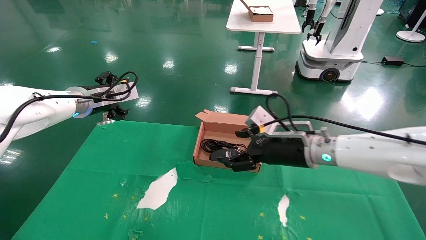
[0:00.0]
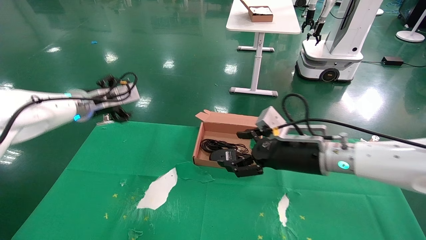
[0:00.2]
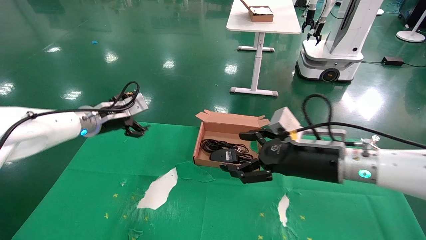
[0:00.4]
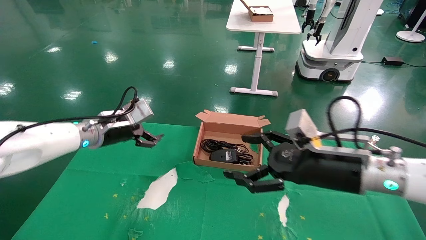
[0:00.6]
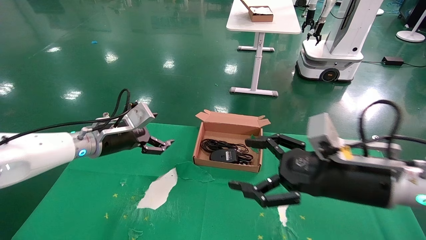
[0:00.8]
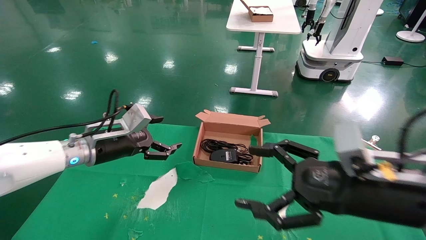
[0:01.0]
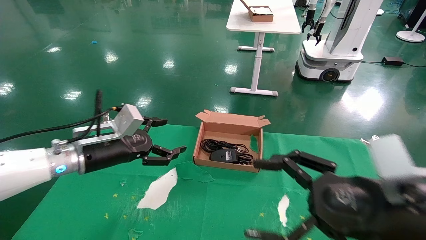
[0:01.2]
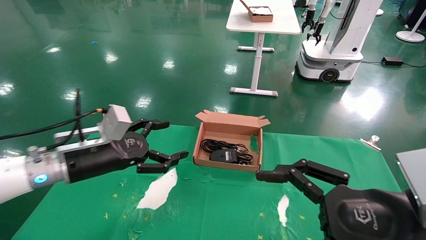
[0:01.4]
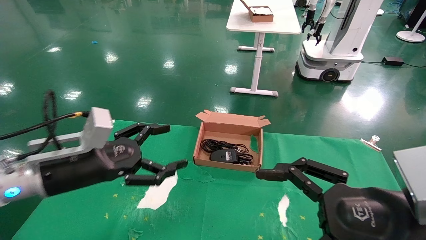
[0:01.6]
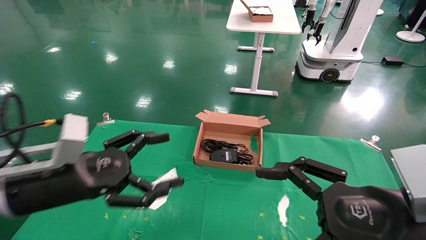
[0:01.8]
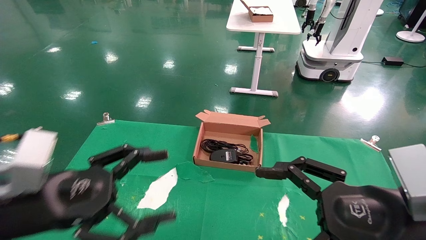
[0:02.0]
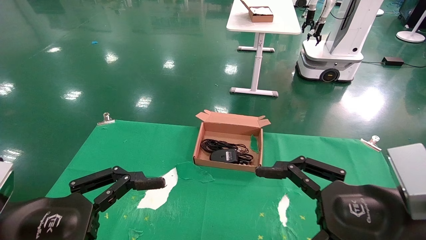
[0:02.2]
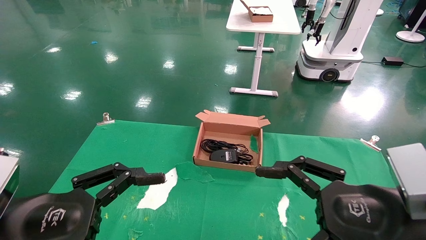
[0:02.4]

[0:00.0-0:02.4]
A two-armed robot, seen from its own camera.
0:00.0 to 0:01.2: The left gripper is displaced backward and downward by some 15 cm, while the right gripper heads backward, covering about 20 cm.
0:01.2 to 0:02.4: The left gripper is displaced backward by about 20 cm.

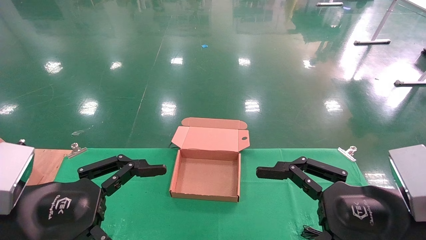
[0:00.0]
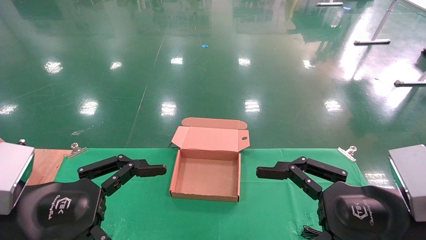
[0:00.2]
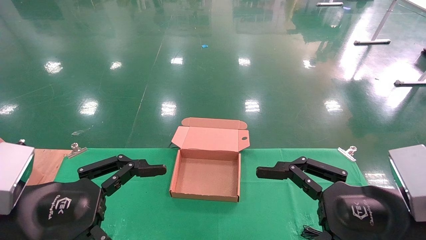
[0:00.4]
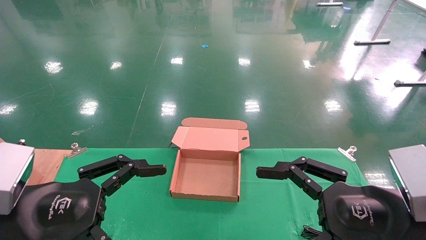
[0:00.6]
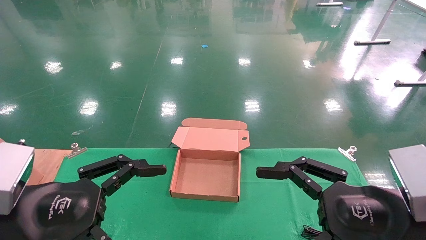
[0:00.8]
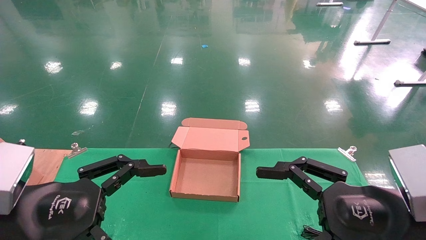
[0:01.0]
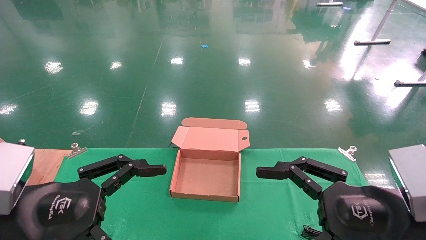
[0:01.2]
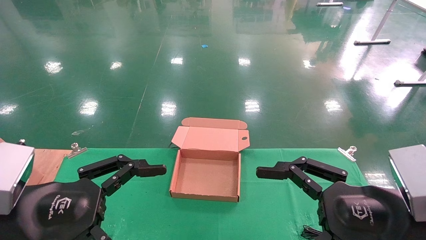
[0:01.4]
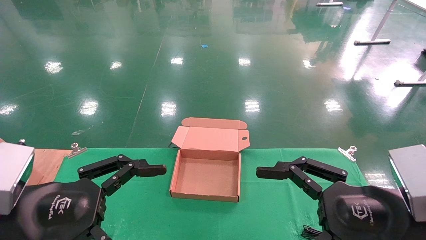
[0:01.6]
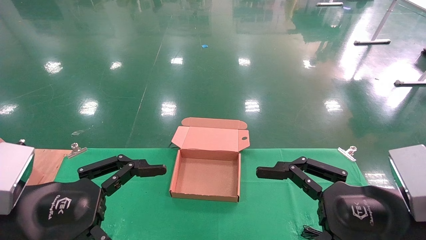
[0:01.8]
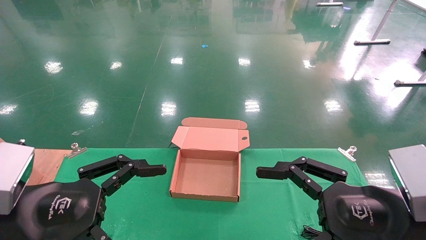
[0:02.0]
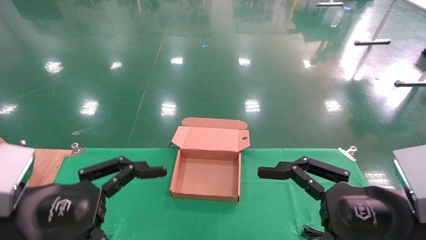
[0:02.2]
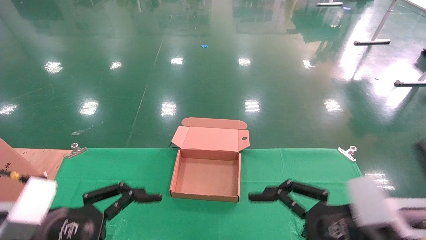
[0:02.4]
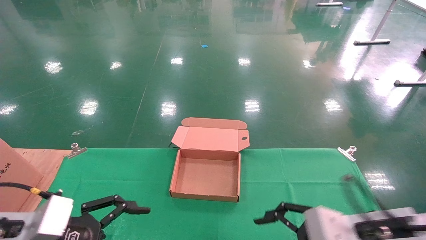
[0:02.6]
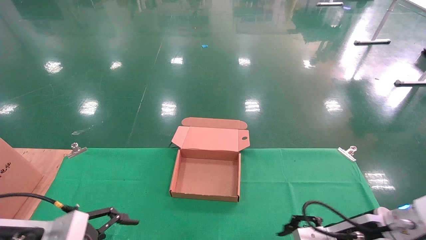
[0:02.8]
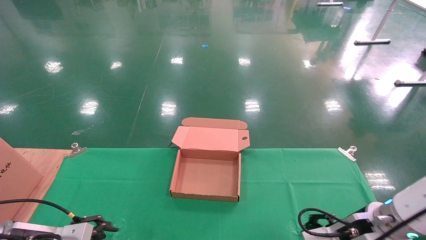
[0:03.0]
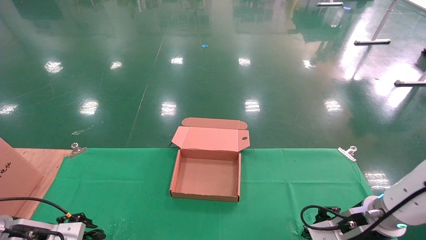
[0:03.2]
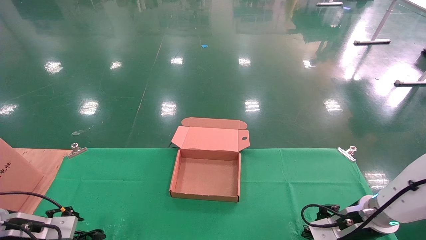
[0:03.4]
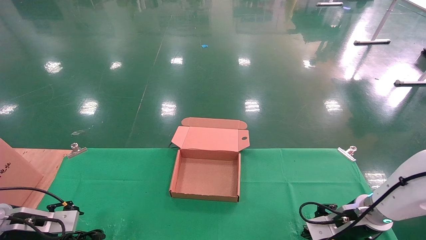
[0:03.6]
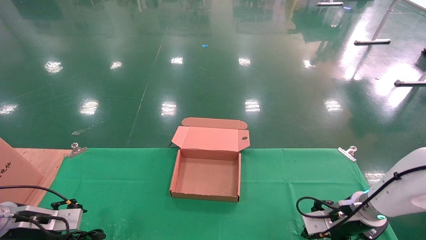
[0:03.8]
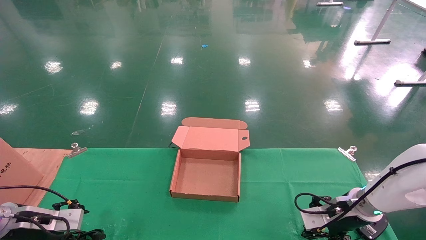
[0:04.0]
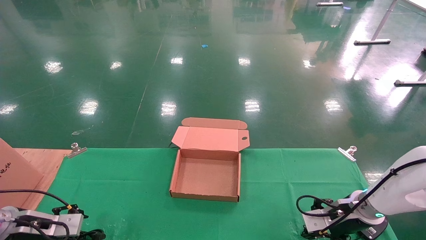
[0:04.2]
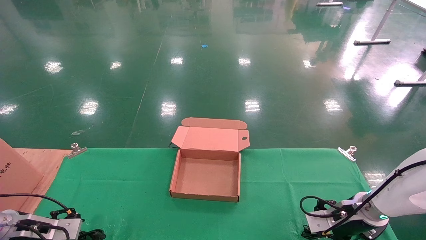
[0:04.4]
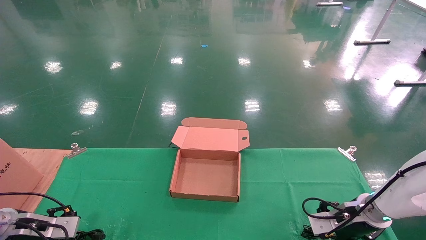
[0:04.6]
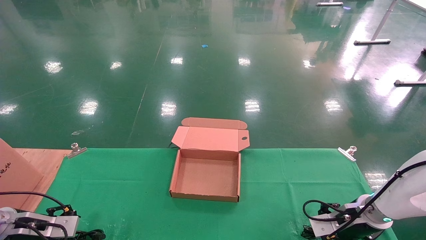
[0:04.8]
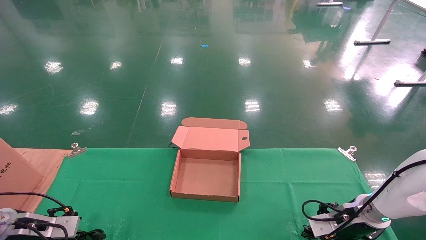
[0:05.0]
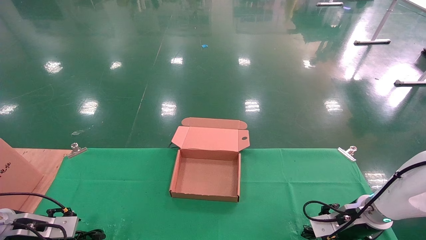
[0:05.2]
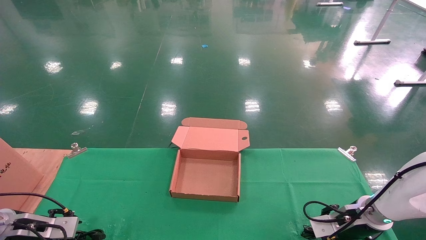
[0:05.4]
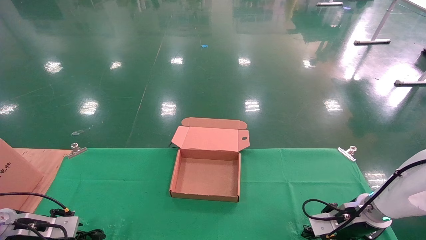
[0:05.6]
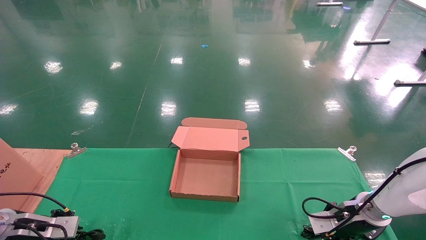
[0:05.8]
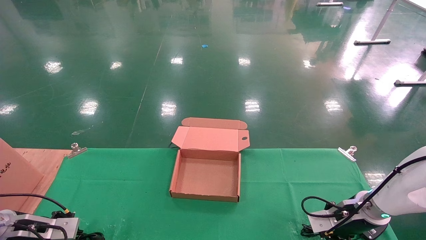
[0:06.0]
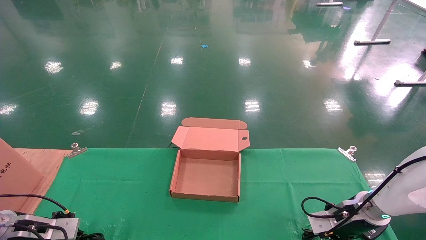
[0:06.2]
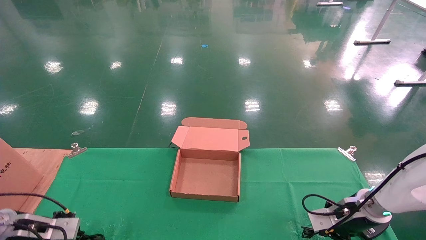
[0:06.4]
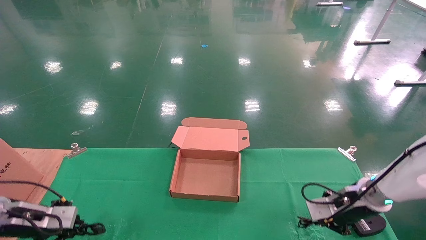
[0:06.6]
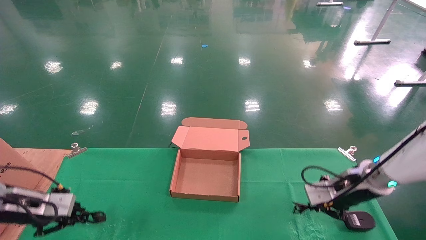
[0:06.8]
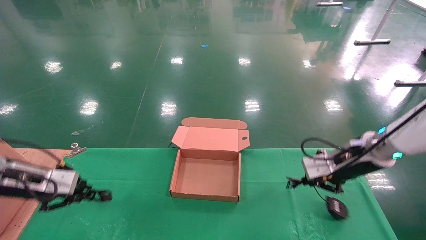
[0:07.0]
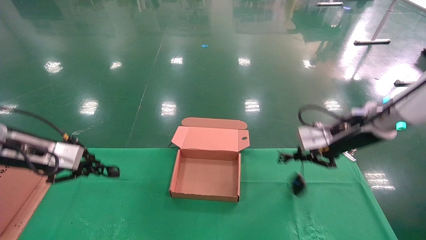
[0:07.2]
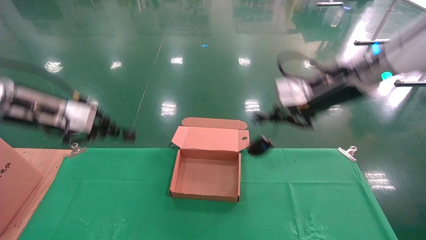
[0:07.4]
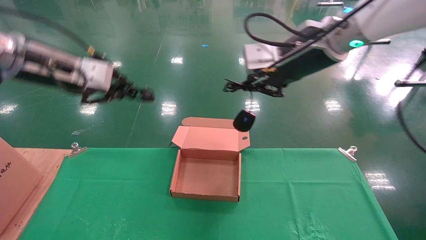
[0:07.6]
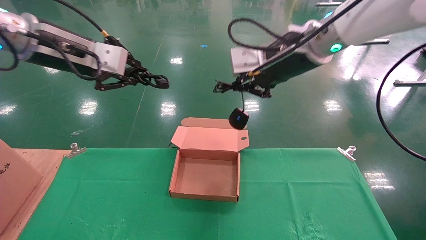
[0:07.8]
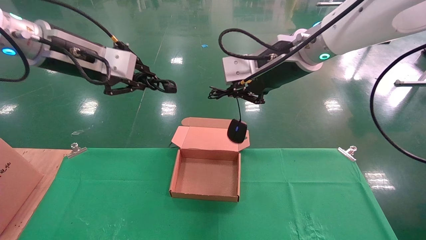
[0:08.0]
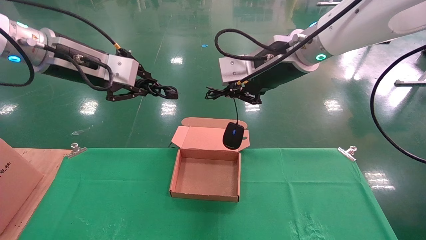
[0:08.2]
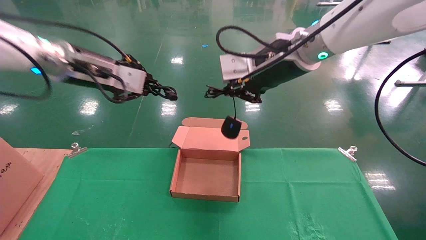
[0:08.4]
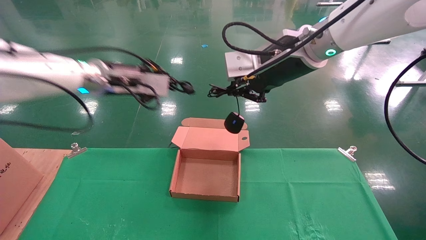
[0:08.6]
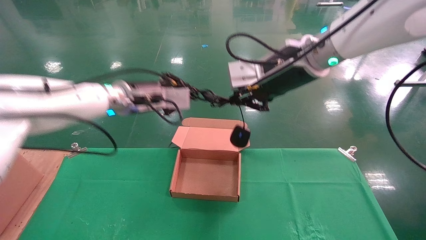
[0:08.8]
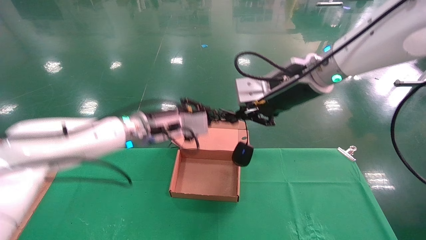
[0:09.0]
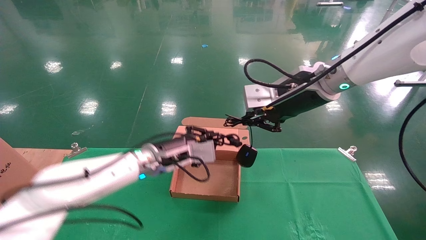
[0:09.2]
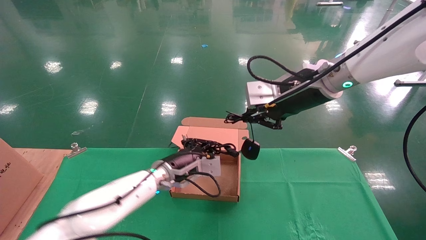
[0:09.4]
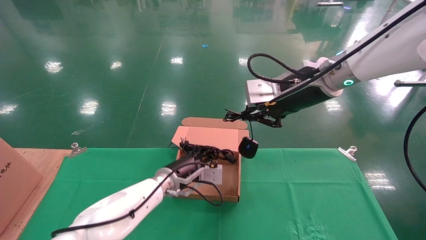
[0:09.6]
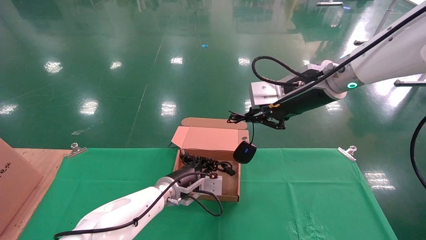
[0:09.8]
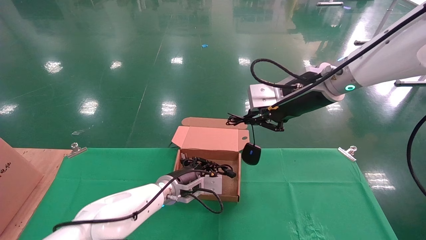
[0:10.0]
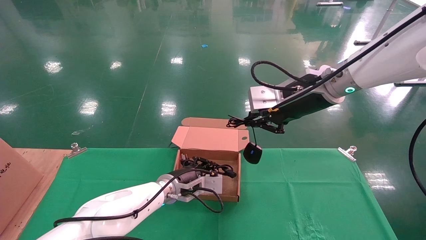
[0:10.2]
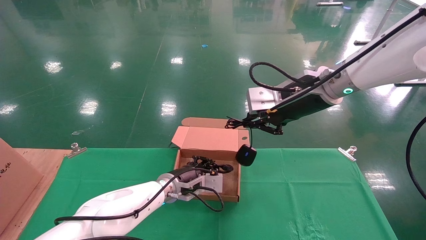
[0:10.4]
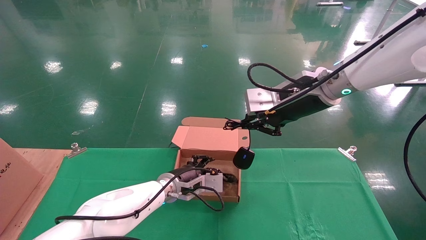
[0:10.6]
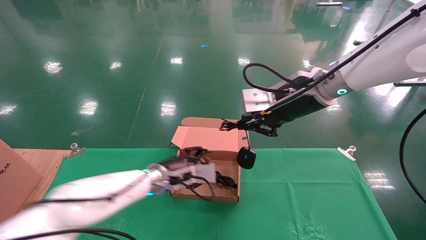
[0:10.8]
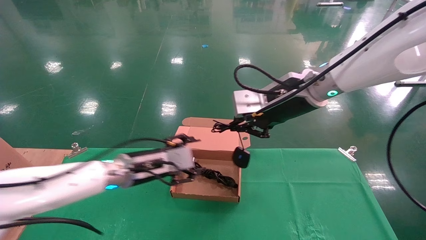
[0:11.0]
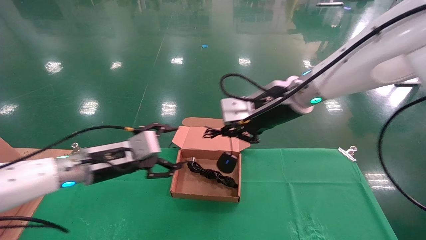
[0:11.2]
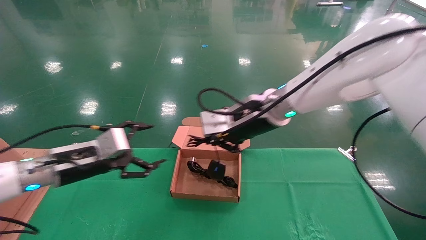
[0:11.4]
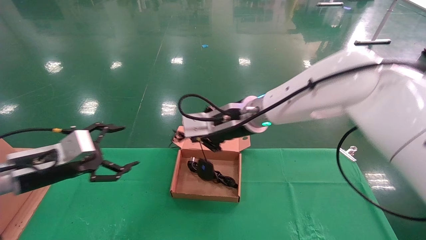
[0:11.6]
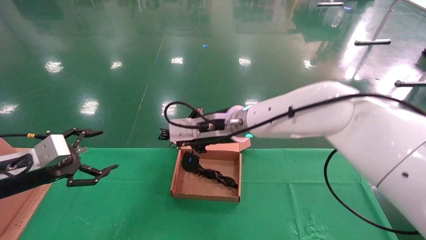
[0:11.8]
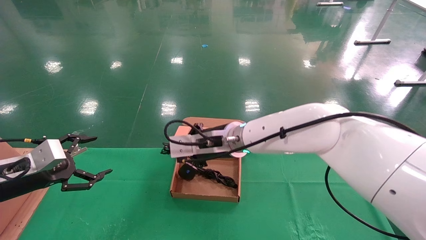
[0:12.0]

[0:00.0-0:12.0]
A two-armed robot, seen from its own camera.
Step, 0:02.4 to 0:07.0: Grab and lift both the mouse and power cord from the accessory packaging area at the same time.
0:00.0 to 0:01.6: Neither gripper changes place.
0:01.6 to 0:03.0: The left gripper goes about 20 cm downward, forward and to the left. The right gripper heads forward and downward, covering about 15 cm.
0:03.0 to 0:04.4: The right gripper is displaced forward by roughly 10 cm. The left gripper goes approximately 10 cm to the left and forward.
0:04.4 to 0:06.0: The left gripper closes. Meanwhile the right gripper closes.
0:06.0 to 0:07.6: The left gripper is displaced upward by some 35 cm; the right gripper shifts some 35 cm upward and to the left.
0:07.6 to 0:09.0: The left gripper moves to the right, downward and forward, about 25 cm.
0:09.0 to 0:10.4: The left gripper goes about 15 cm downward.
0:10.4 to 0:12.0: The left gripper goes approximately 35 cm to the left and backward, and opens up; the right gripper moves to the left and downward, about 20 cm.

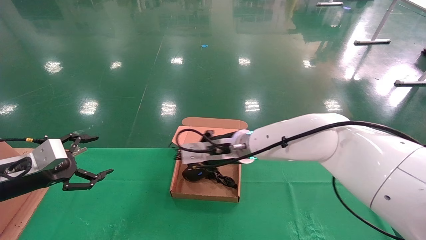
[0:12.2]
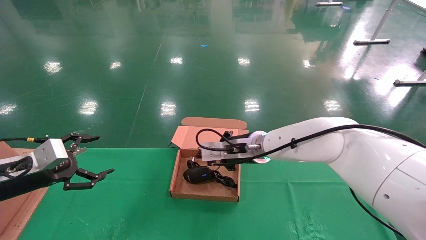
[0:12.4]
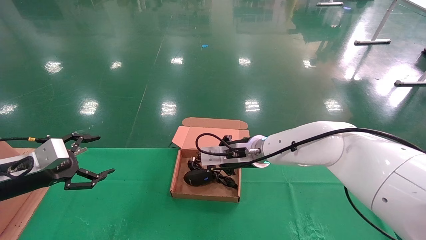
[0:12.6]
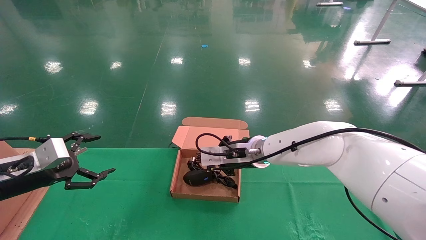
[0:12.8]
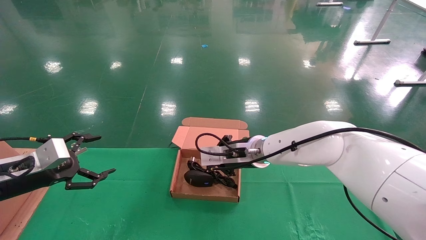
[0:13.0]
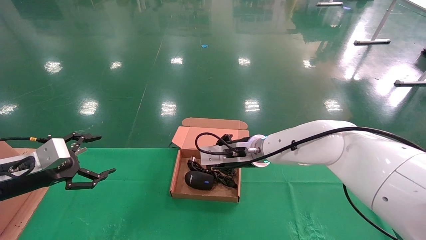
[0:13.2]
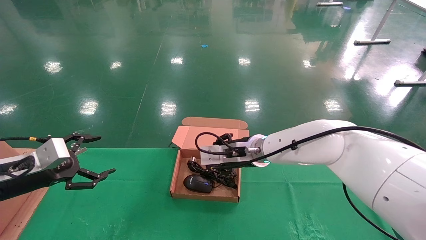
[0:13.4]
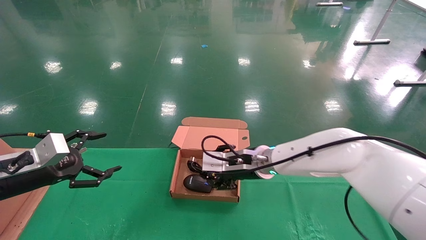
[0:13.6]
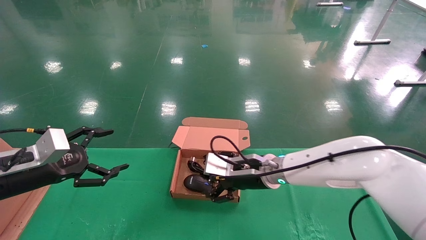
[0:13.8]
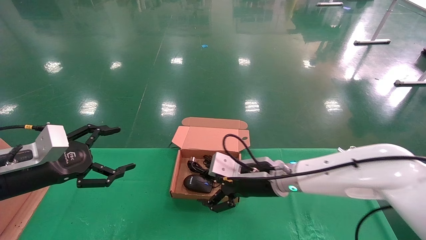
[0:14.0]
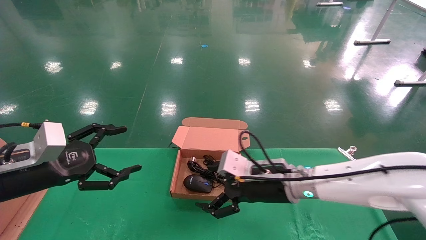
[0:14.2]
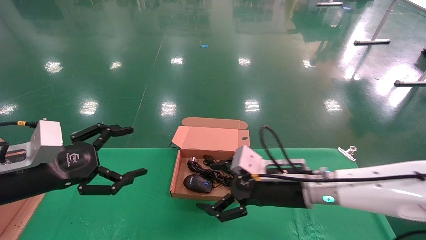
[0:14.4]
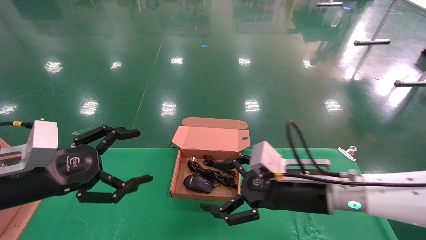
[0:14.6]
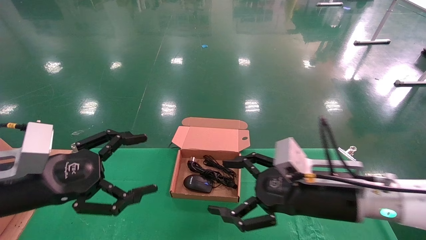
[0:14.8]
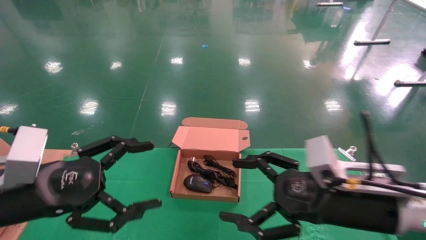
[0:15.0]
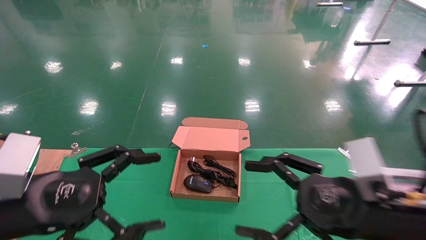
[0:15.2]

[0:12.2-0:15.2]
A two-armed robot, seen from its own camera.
0:12.2 to 0:13.8: The right gripper is displaced downward by roughly 5 cm, and opens up.
0:13.8 to 0:15.2: The left gripper shifts some 15 cm backward and to the right, while the right gripper heads backward and to the right, covering roughly 25 cm.
